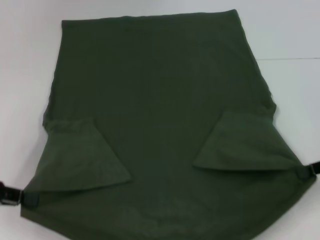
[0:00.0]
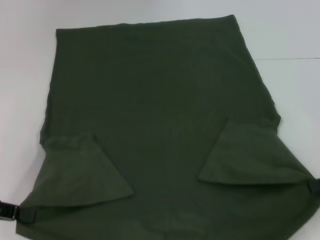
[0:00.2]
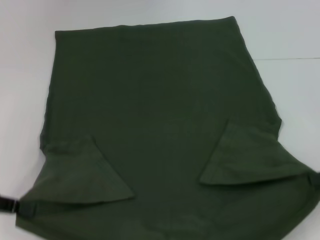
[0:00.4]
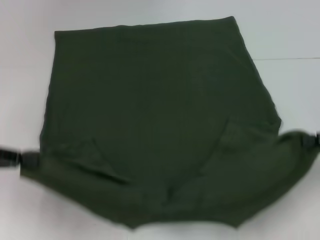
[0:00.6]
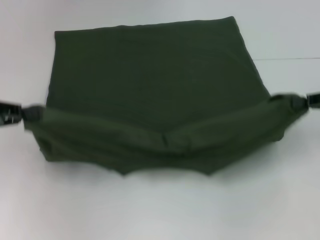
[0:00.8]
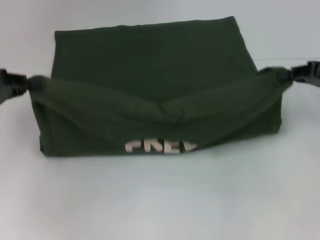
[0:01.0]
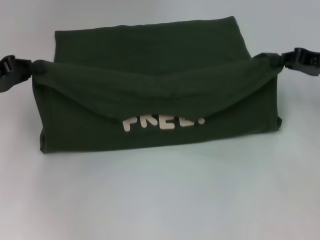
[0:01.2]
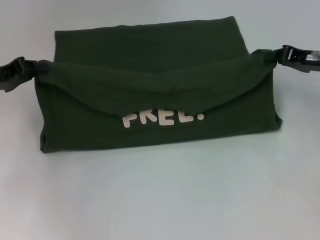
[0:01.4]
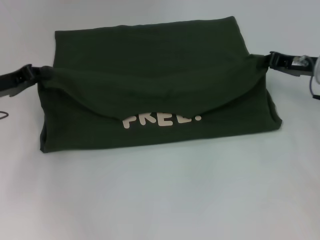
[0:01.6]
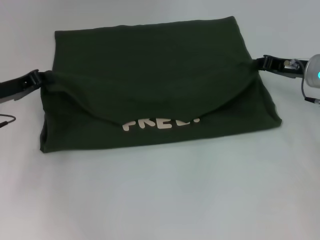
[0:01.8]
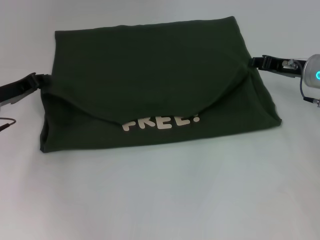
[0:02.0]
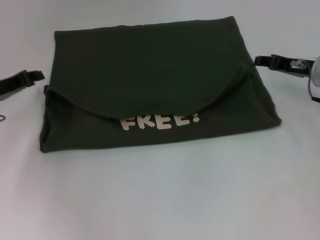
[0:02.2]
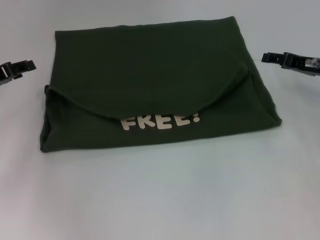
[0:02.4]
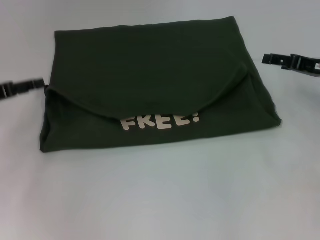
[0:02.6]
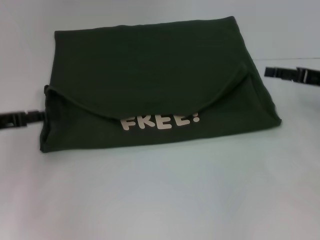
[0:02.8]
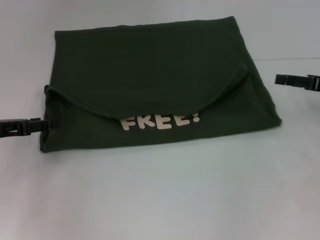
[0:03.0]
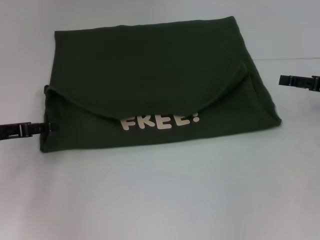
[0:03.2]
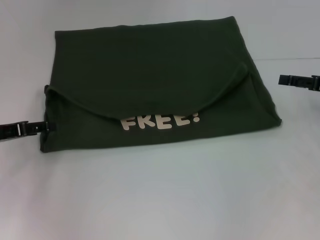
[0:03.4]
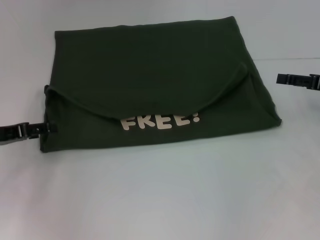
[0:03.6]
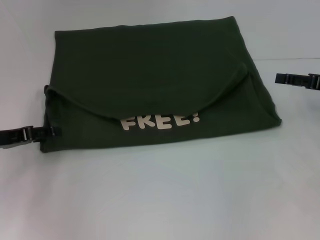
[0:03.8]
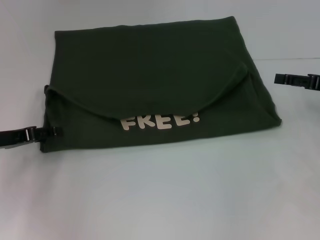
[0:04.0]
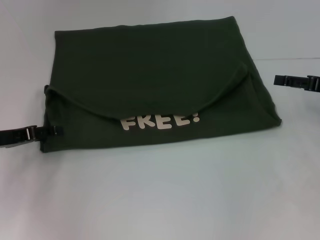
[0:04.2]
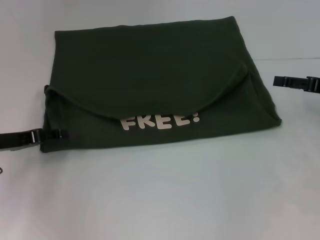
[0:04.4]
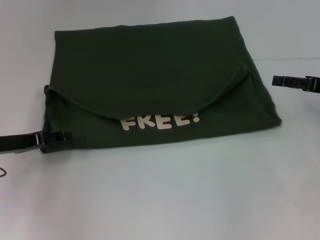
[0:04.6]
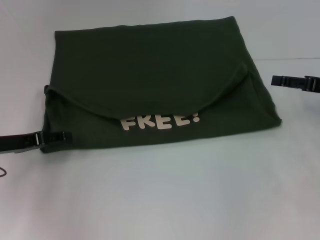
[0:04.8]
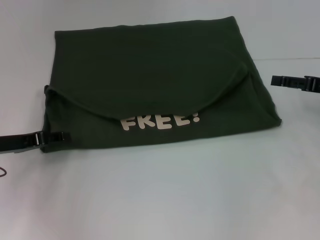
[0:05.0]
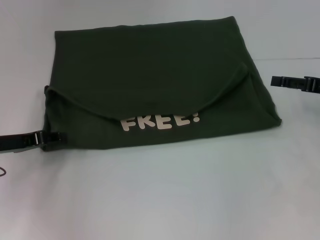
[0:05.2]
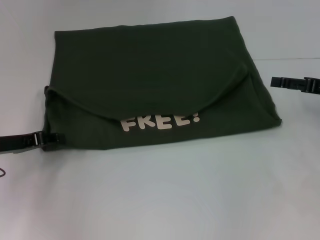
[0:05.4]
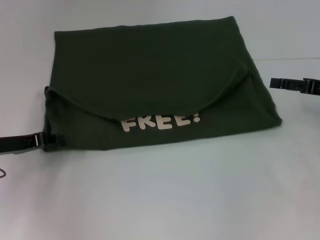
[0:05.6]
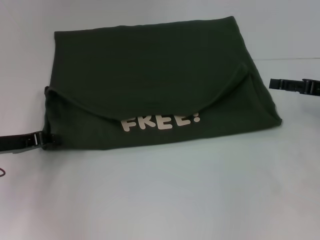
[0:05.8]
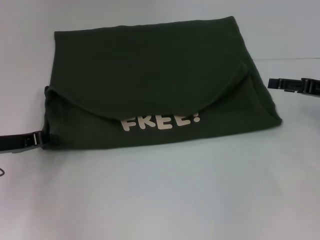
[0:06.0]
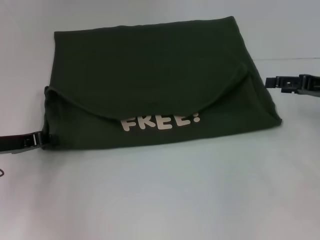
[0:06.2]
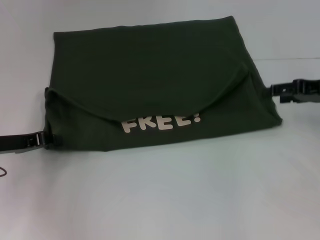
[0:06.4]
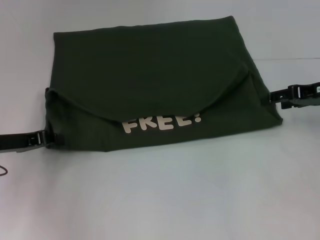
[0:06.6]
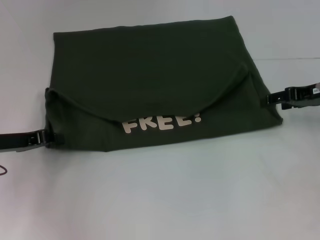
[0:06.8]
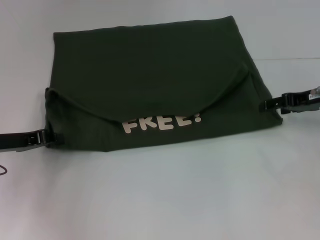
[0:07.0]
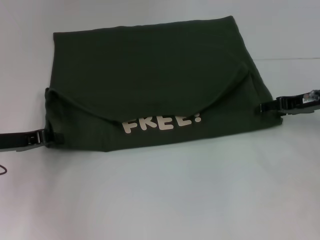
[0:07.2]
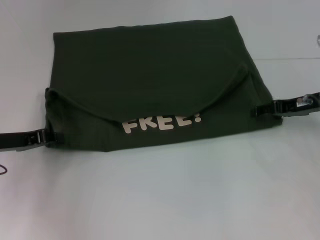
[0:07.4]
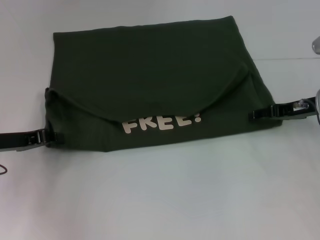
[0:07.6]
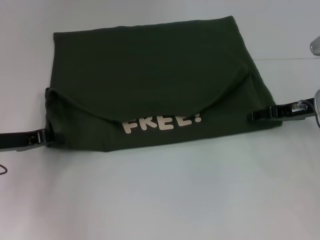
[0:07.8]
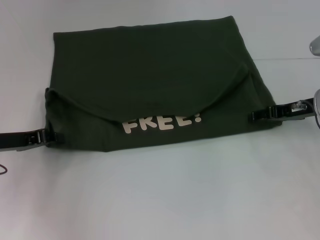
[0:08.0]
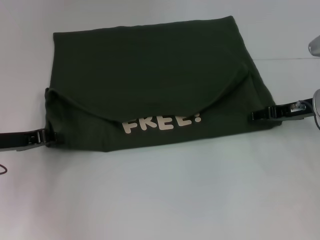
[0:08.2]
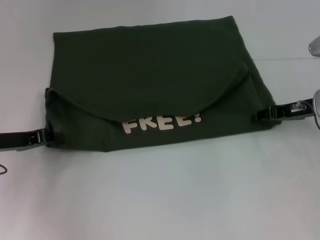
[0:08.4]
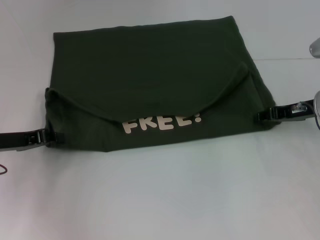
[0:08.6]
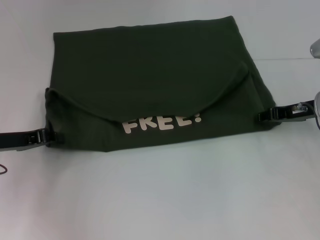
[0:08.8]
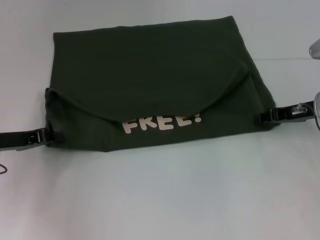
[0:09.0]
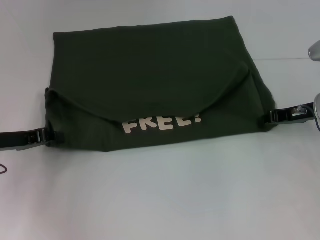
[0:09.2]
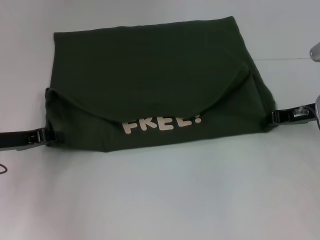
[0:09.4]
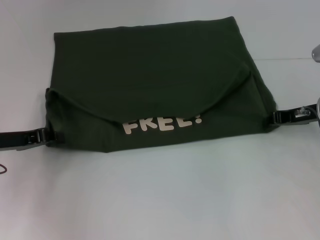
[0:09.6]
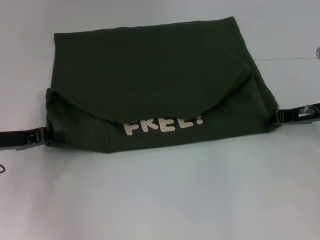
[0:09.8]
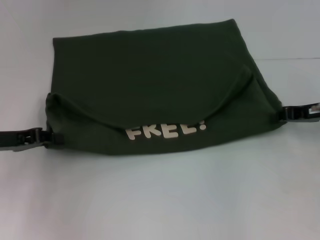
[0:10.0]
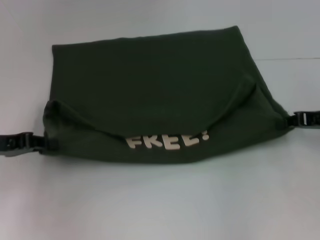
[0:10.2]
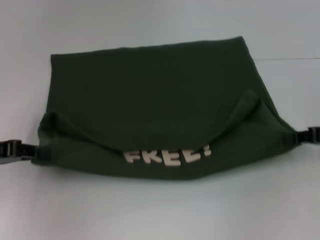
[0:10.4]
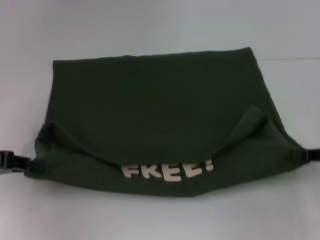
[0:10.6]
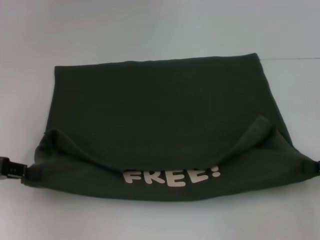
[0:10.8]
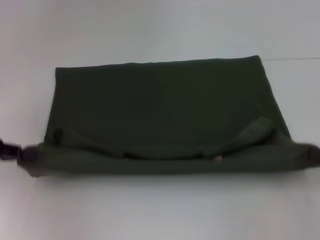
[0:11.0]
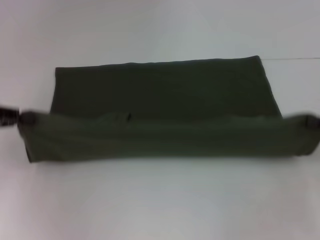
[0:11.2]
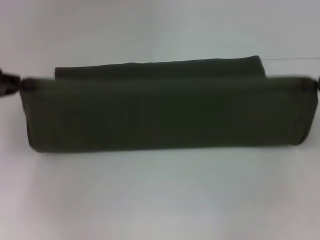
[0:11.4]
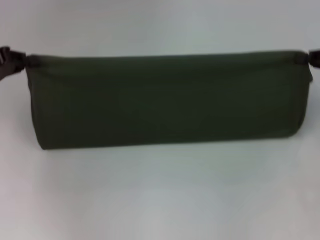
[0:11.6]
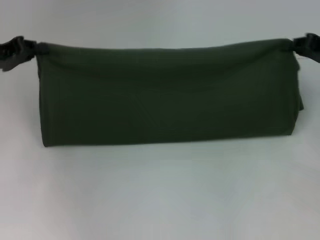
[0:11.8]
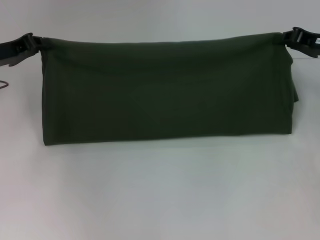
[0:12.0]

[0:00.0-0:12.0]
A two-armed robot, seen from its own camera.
Step, 0:00.0 to 0:02.6: Fold the clothes with your left hand.
Step, 0:00.0 to 0:02.6: Fold the clothes with your right hand.
Step, 0:02.8 to 0:10.6: Pull the clothes with your left hand.
Step, 0:02.8 to 0:10.6: Pull the clothes with your right hand.
0:00.0 to 0:01.6: The left gripper heads forward, covering approximately 10 cm; the right gripper shifts some 15 cm forward and to the left.
0:01.6 to 0:03.0: The left gripper shifts some 5 cm backward, and opens up. Meanwhile the right gripper shifts about 10 cm to the right and backward, and opens its fingers.
0:03.0 to 0:04.4: The grippers stay close to where they were, moving slightly.
0:04.4 to 0:06.0: The left gripper closes up.
0:06.0 to 0:07.6: The right gripper moves to the left, about 5 cm.
0:07.6 to 0:09.0: The right gripper closes its fingers.
0:09.0 to 0:10.4: The left gripper ends up approximately 5 cm from where it was. Meanwhile the right gripper travels backward and to the right by roughly 10 cm.
0:10.4 to 0:12.0: The grippers both shift forward by about 10 cm.

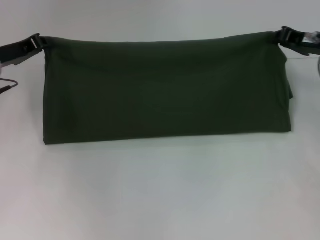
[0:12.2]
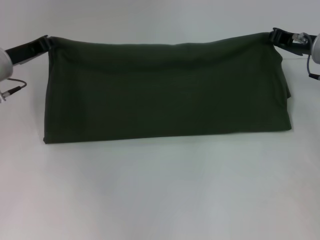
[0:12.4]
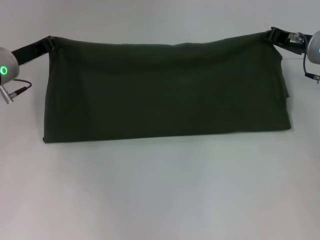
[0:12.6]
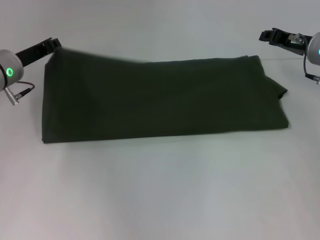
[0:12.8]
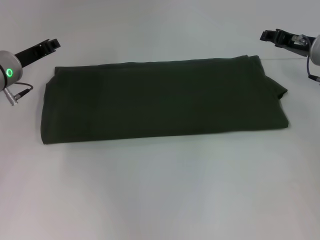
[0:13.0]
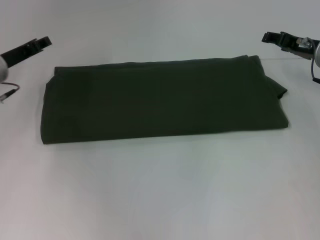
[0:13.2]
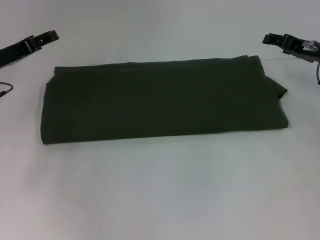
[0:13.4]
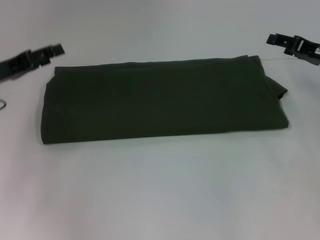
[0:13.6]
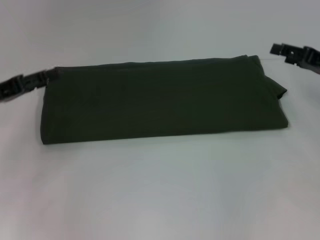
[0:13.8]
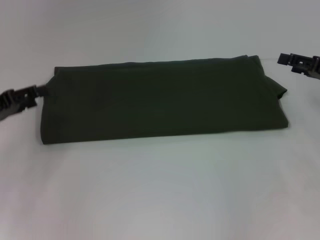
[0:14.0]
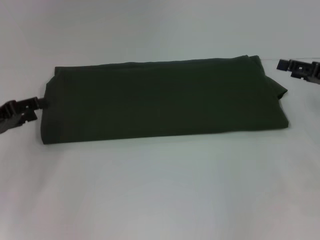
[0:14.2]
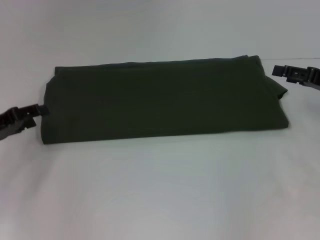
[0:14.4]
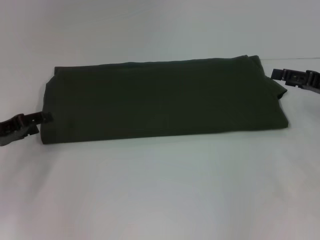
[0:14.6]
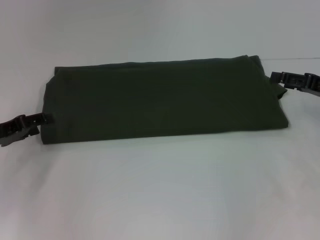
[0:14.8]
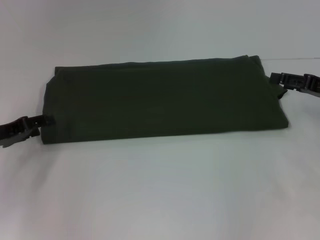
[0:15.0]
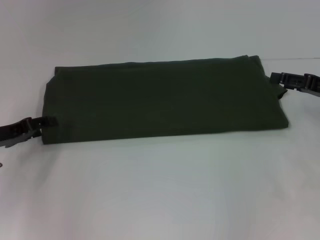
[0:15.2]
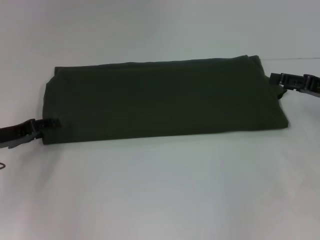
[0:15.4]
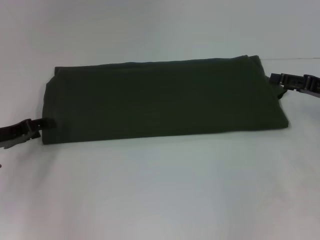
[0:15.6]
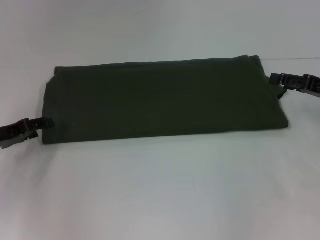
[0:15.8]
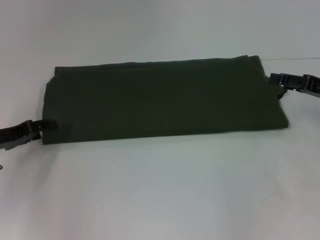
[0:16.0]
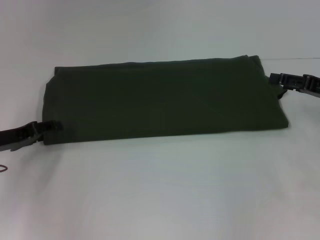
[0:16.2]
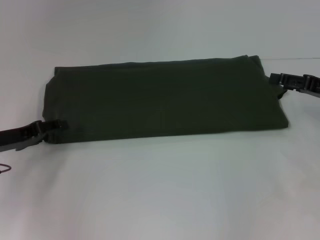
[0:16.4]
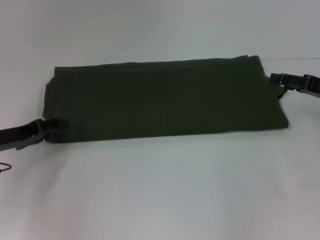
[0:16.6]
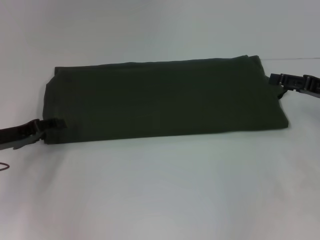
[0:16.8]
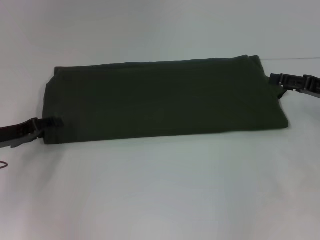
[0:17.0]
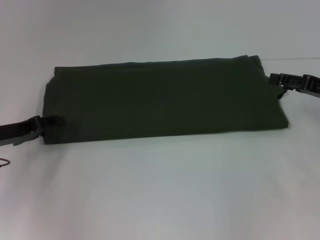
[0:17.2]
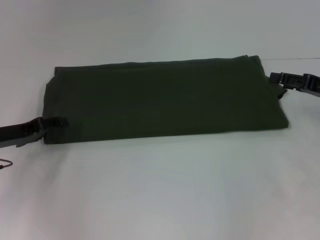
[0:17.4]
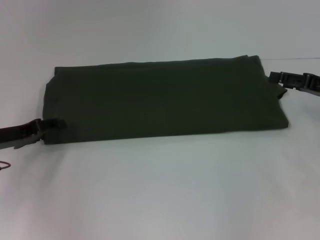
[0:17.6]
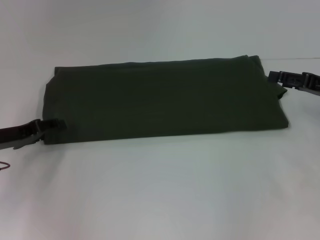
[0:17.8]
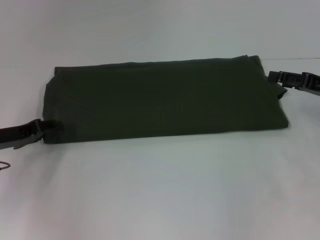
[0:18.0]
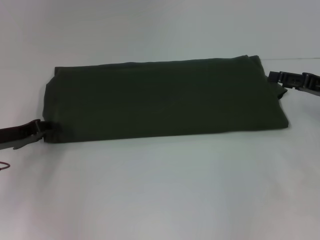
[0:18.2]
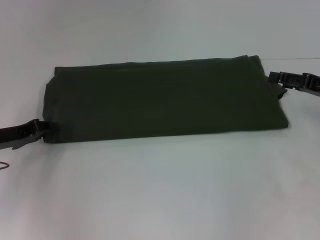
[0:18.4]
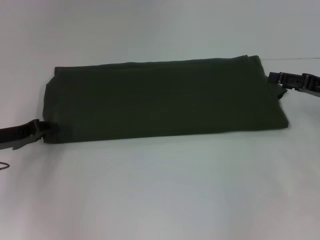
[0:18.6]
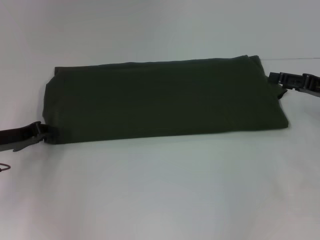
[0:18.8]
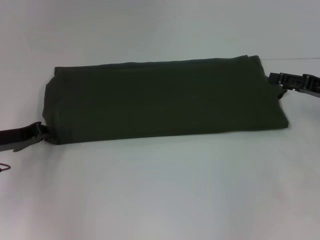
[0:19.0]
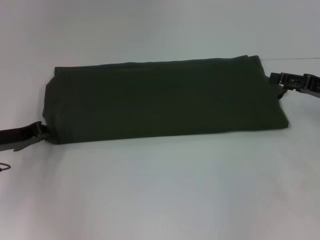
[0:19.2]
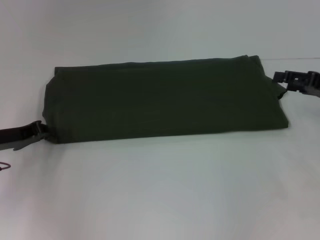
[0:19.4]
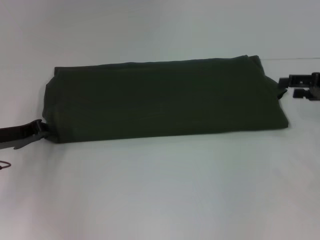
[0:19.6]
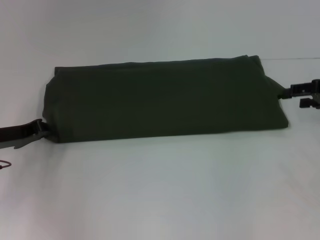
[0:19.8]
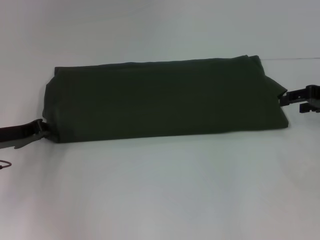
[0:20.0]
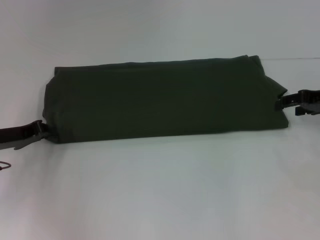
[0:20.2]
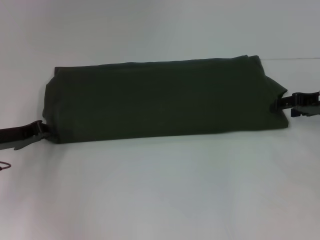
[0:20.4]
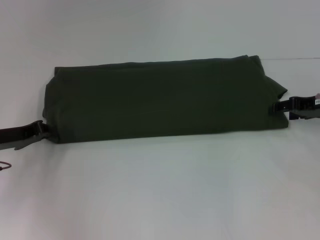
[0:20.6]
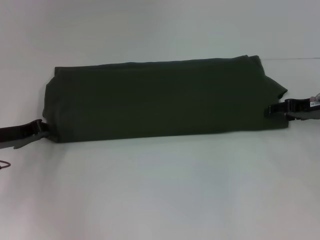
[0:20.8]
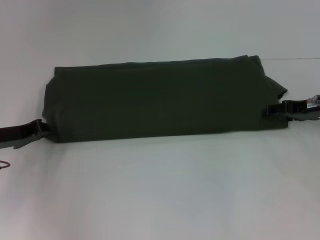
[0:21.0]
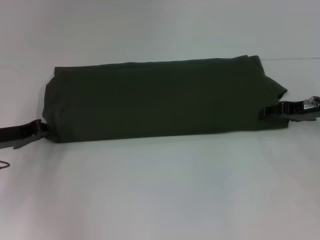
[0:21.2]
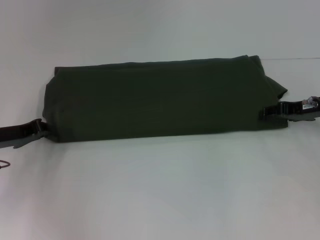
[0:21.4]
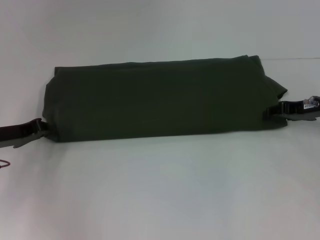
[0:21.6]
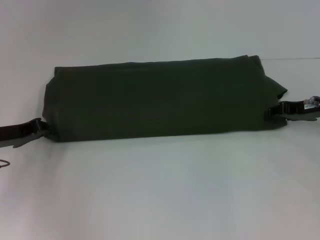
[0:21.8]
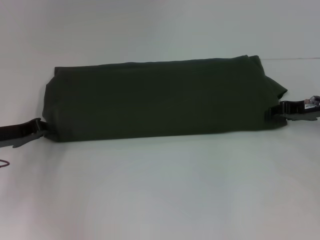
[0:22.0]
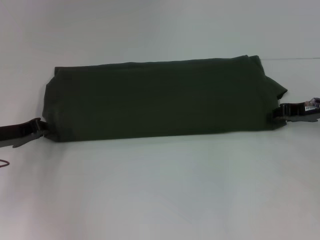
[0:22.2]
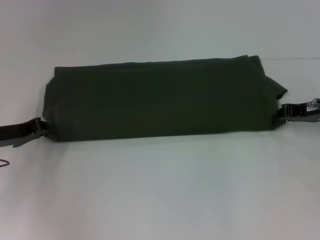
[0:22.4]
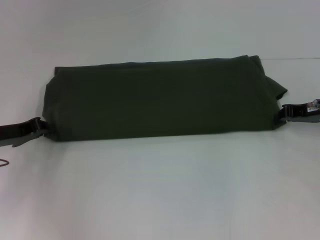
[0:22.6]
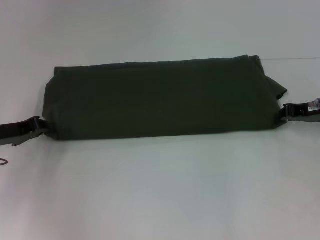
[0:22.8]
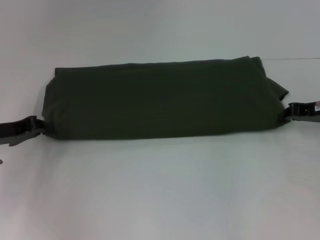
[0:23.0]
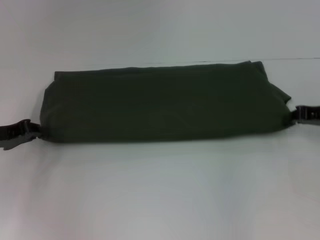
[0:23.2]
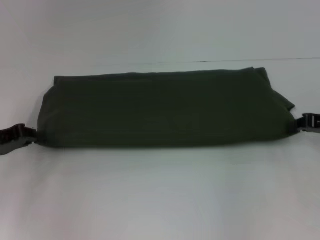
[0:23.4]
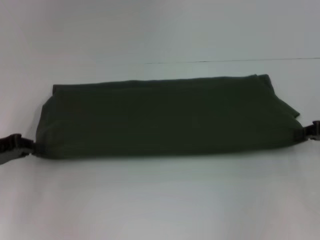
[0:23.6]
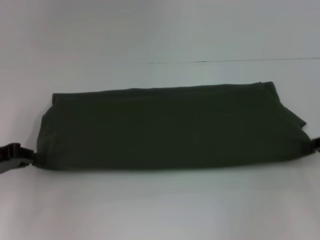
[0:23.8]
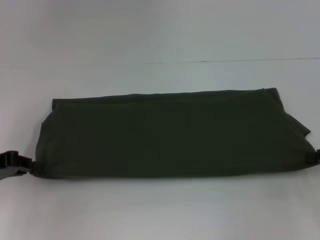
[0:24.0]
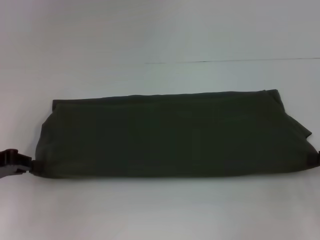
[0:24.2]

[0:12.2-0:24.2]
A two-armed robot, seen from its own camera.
0:12.2 to 0:13.8: The two grippers go about 5 cm backward. The right gripper opens up; the left gripper opens up.
0:13.8 to 0:15.2: The left gripper is displaced downward by roughly 5 cm.
0:15.2 to 0:16.6: Both grippers stay put.
0:16.6 to 0:18.2: Both grippers stay about where they are.
0:19.8 to 0:21.2: The right gripper goes roughly 5 cm to the left.
0:21.2 to 0:22.6: The right gripper closes.
0:22.6 to 0:24.2: The left gripper shifts by some 5 cm, while the right gripper travels backward and to the right by about 15 cm.
